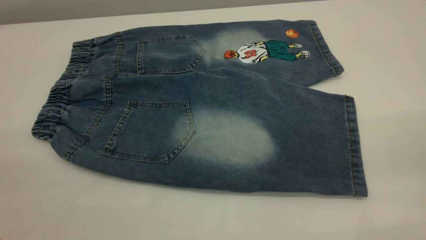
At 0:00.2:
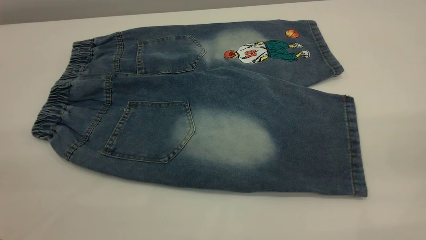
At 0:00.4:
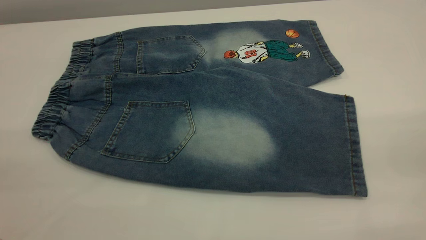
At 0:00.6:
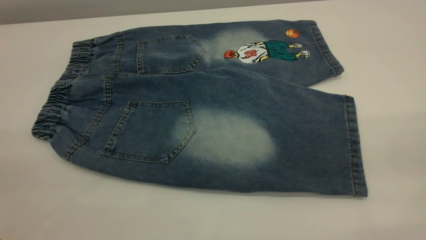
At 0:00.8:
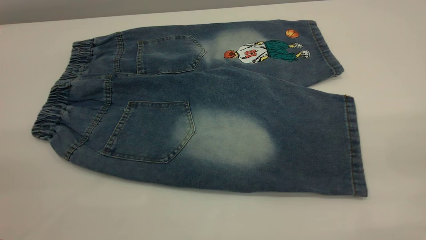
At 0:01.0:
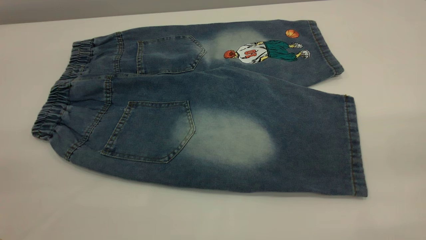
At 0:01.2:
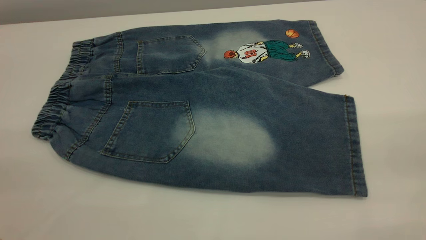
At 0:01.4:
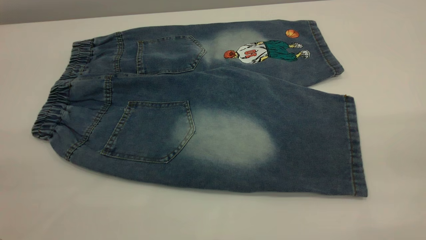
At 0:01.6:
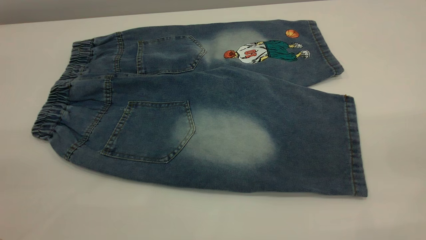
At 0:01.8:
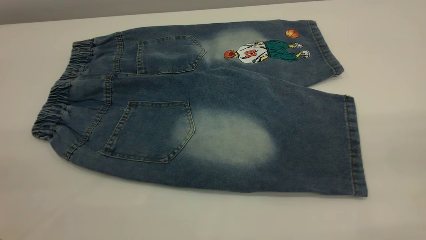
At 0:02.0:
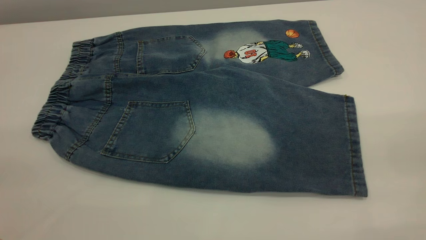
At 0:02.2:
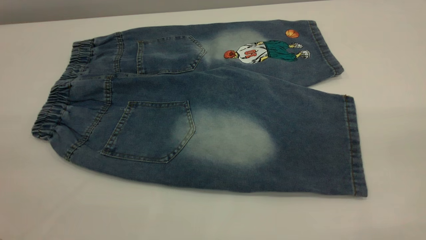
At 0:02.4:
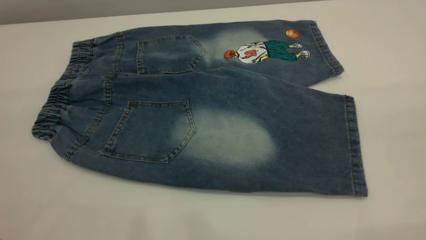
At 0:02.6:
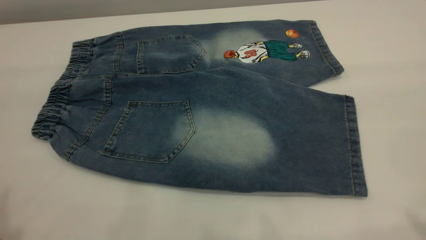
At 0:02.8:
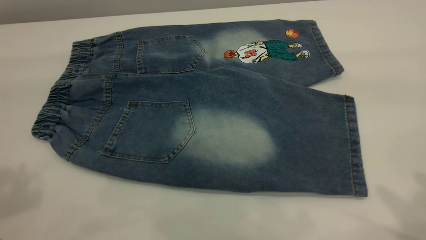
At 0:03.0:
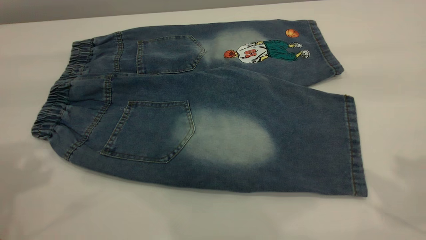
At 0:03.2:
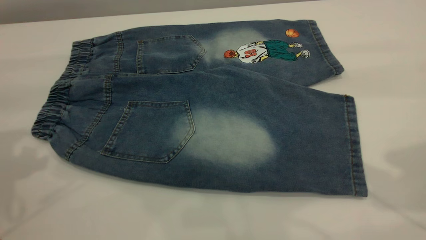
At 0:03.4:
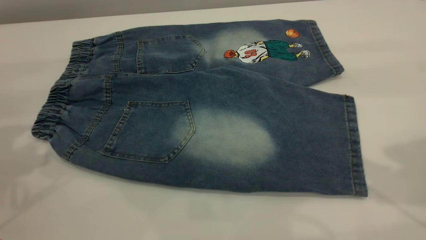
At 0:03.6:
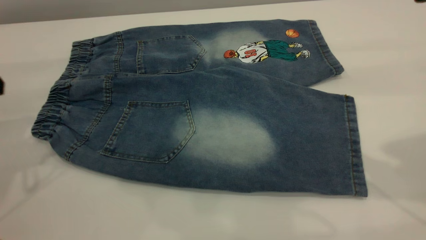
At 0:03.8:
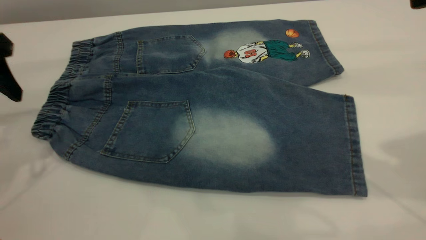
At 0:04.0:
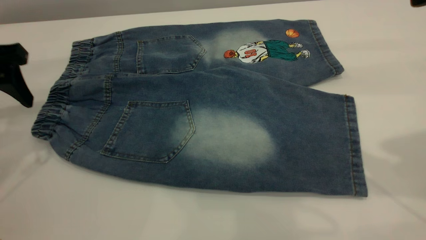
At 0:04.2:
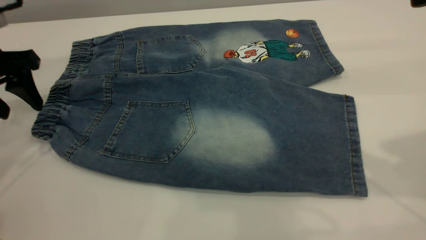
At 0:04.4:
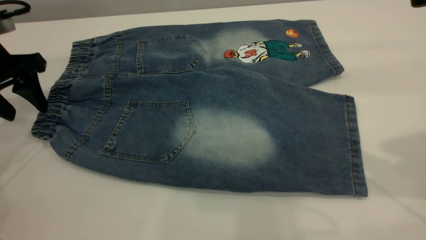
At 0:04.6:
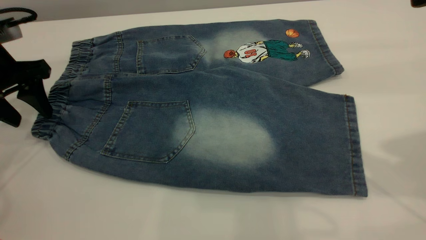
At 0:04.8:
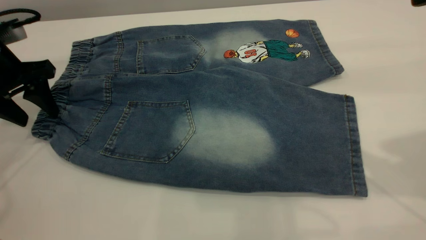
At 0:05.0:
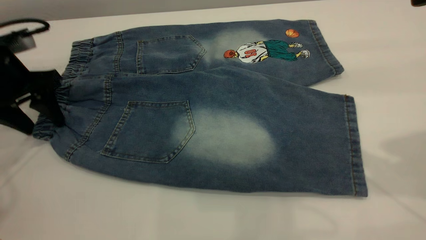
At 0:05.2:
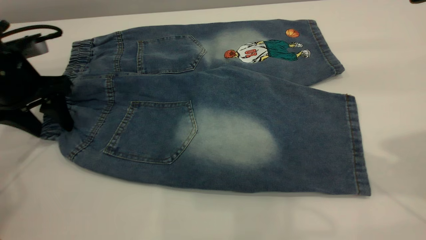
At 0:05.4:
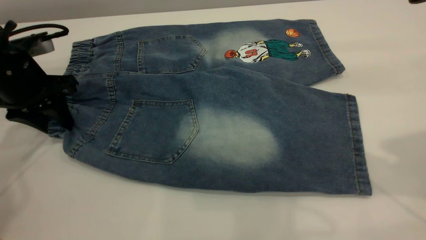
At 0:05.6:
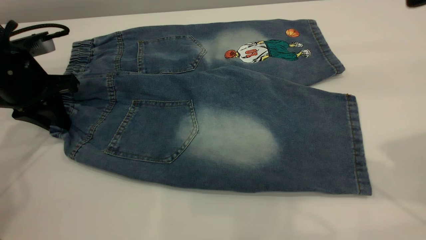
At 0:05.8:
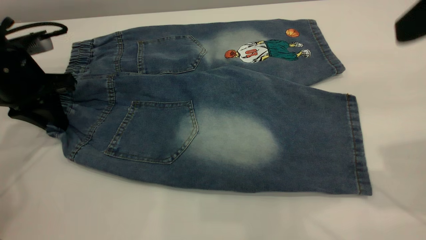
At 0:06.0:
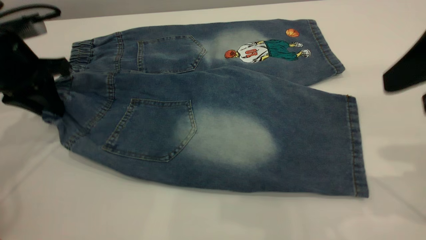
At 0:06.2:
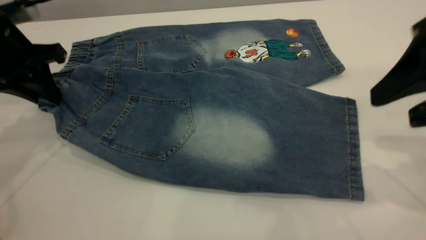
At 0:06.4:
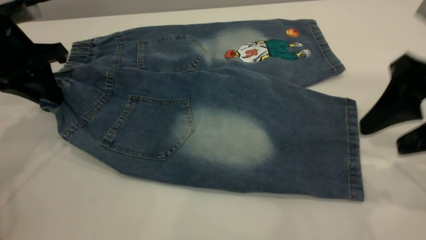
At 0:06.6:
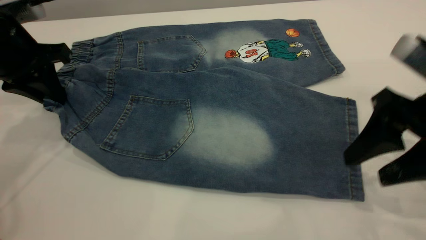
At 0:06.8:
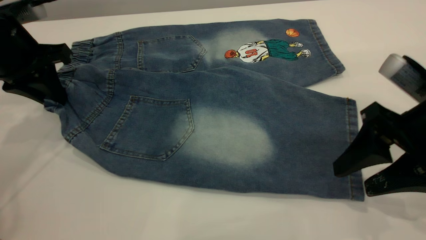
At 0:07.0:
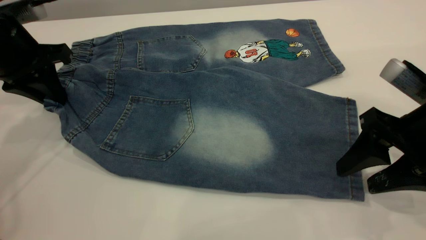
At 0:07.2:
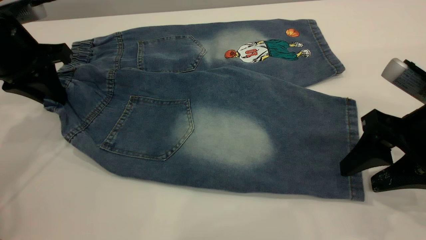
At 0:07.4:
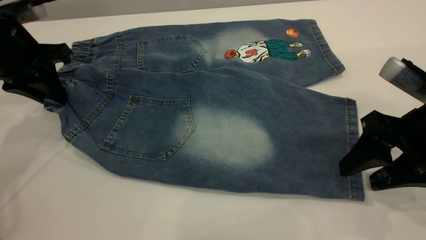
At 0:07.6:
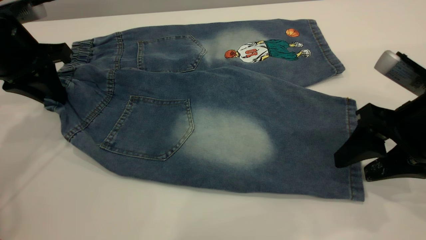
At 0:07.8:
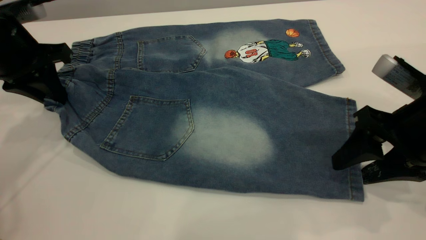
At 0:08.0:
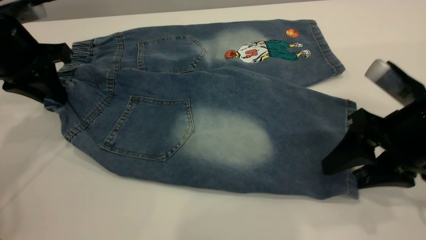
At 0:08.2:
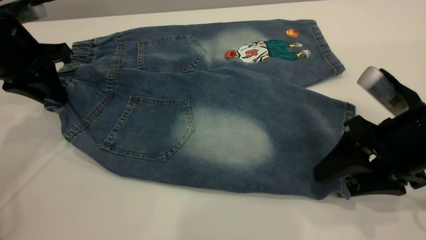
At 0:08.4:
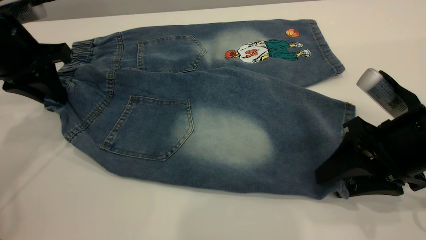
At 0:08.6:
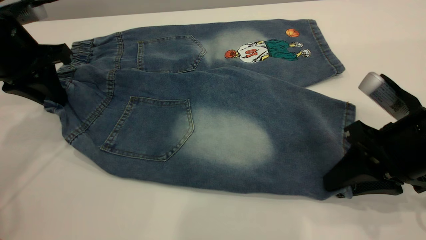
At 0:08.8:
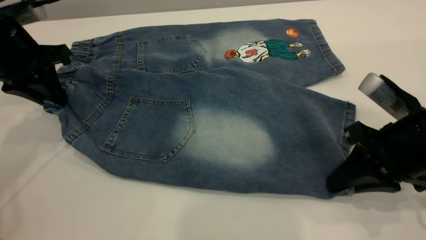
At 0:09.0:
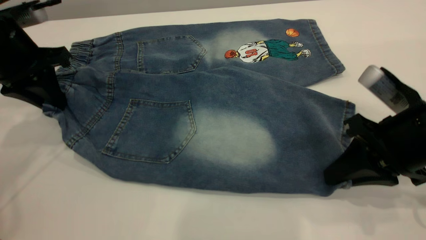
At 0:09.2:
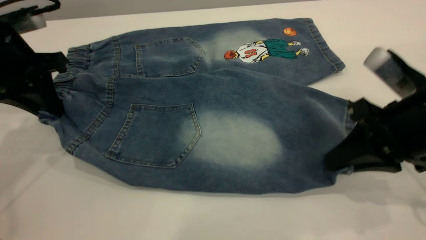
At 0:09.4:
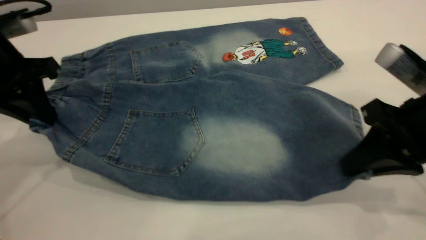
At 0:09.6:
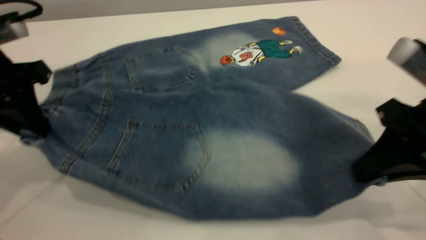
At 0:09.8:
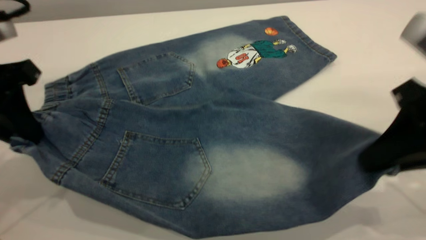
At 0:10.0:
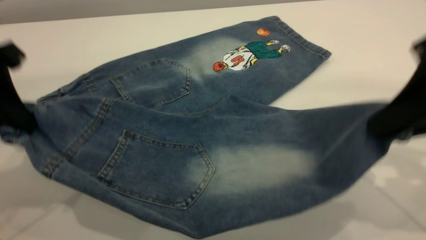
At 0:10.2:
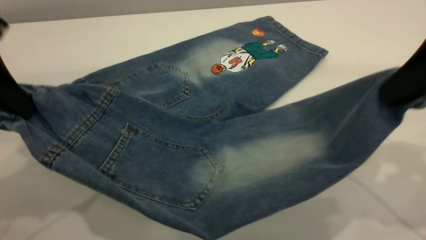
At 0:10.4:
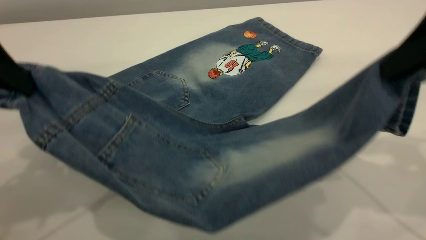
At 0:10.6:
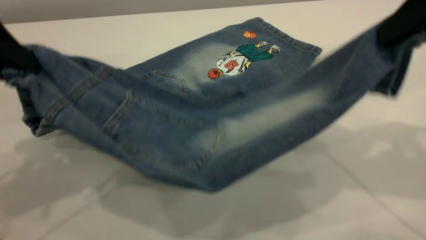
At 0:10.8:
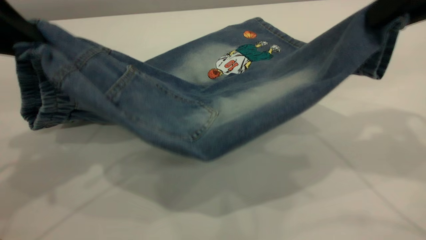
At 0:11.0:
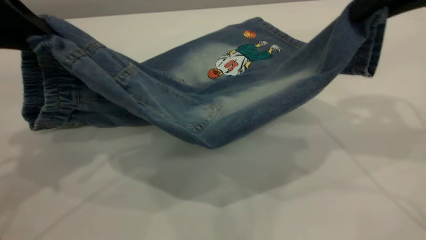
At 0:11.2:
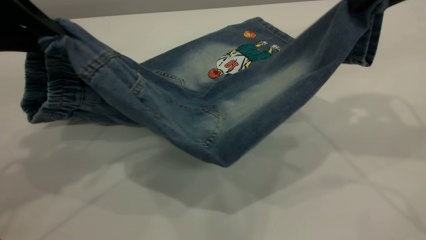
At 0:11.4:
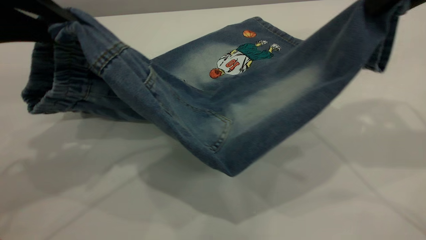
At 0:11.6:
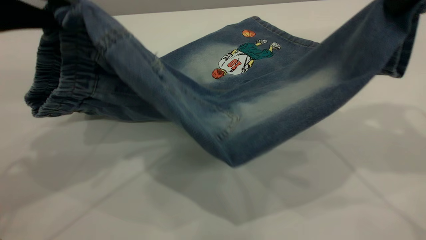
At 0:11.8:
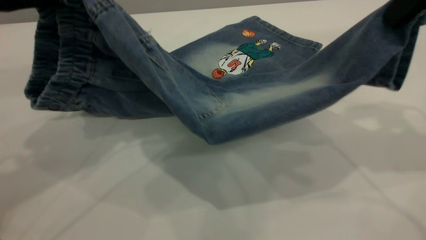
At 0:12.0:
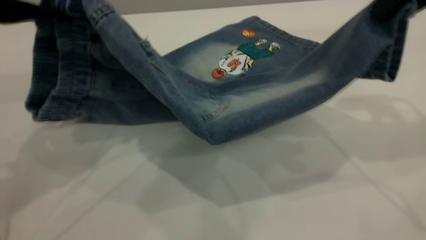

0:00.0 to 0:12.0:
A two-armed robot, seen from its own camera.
0:00.0 to 0:01.6: Both grippers stay put.
0:03.0 to 0:04.4: The left gripper is displaced downward and forward by approximately 20 cm.
0:04.4 to 0:06.0: The right gripper heads downward, covering roughly 5 cm. Meanwhile the left gripper closes.
0:06.0 to 0:07.6: The right gripper shifts approximately 15 cm downward.
0:07.6 to 0:09.0: The right gripper closes its fingers.
0:09.0 to 0:10.4: The left gripper heads backward and upward, covering approximately 15 cm. The right gripper goes about 20 cm upward.
0:10.4 to 0:12.0: The right gripper is displaced forward by roughly 10 cm.

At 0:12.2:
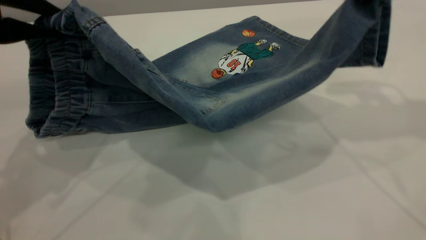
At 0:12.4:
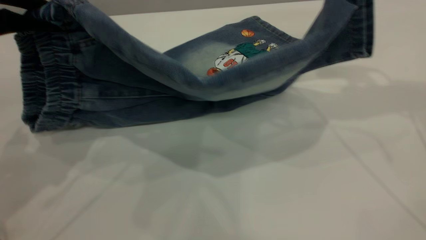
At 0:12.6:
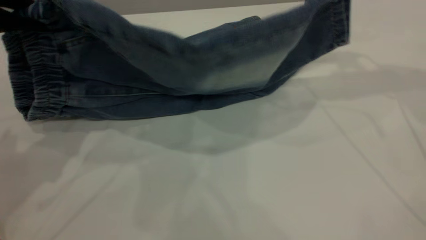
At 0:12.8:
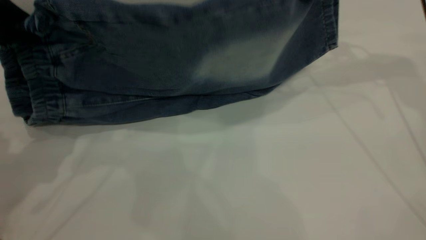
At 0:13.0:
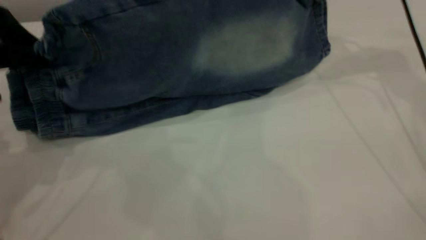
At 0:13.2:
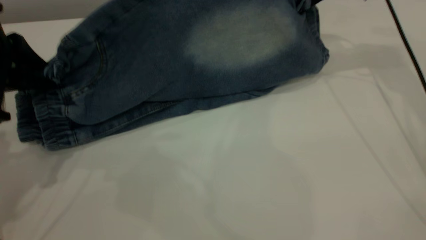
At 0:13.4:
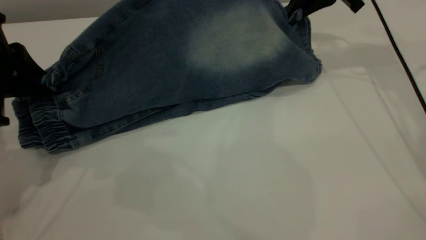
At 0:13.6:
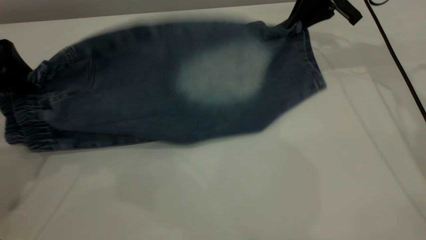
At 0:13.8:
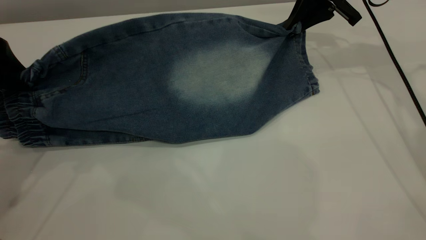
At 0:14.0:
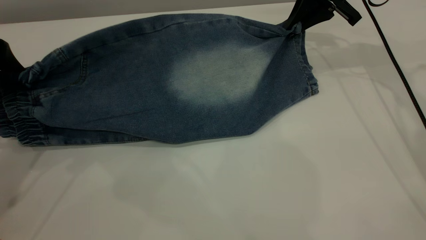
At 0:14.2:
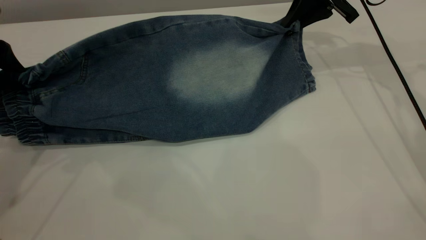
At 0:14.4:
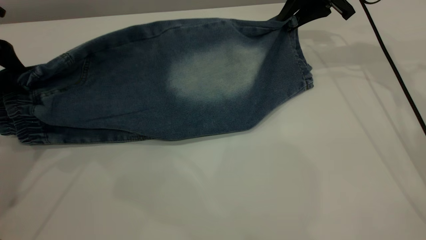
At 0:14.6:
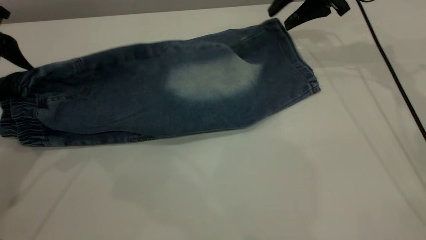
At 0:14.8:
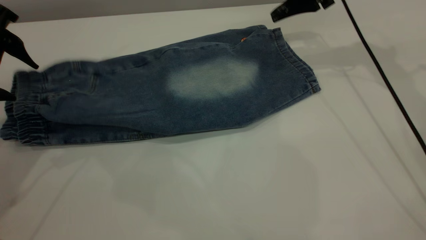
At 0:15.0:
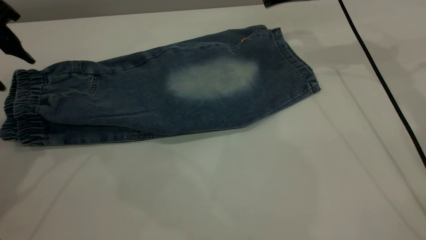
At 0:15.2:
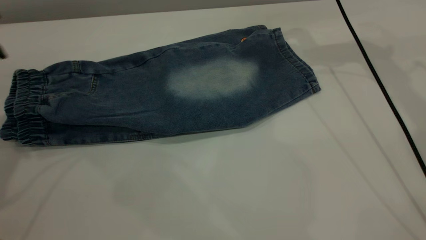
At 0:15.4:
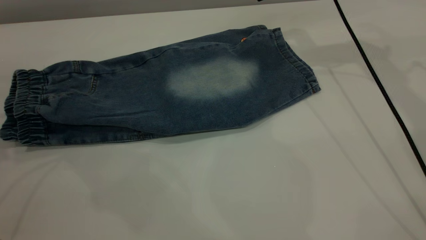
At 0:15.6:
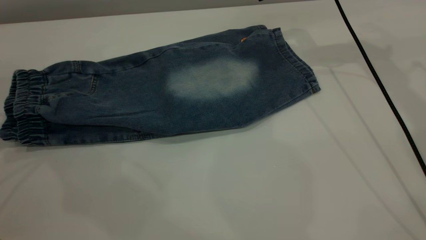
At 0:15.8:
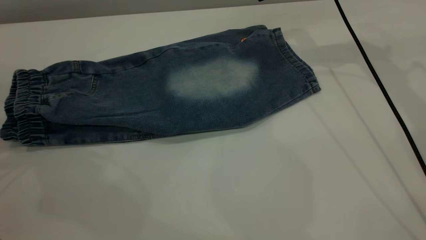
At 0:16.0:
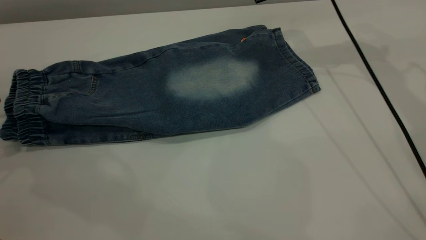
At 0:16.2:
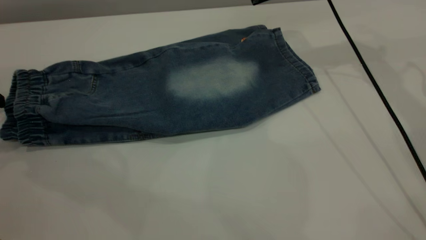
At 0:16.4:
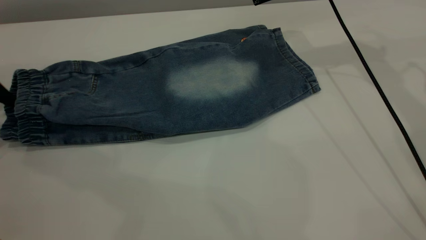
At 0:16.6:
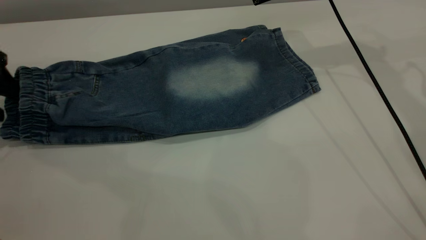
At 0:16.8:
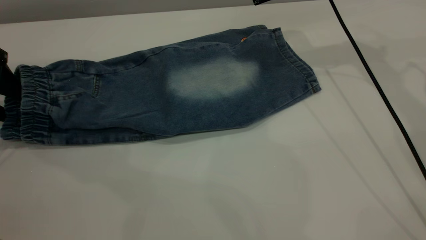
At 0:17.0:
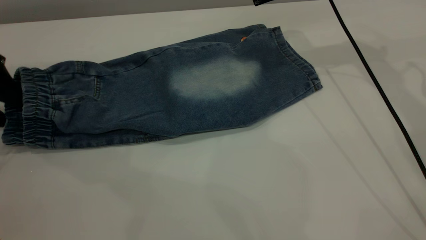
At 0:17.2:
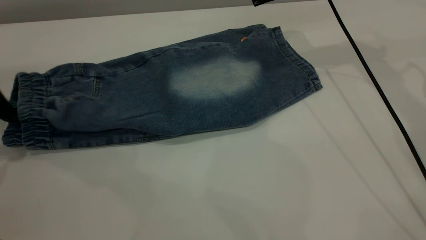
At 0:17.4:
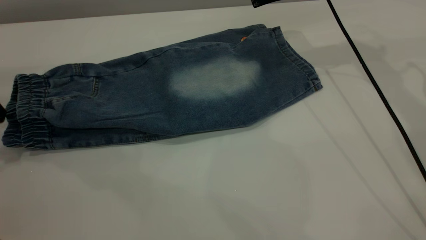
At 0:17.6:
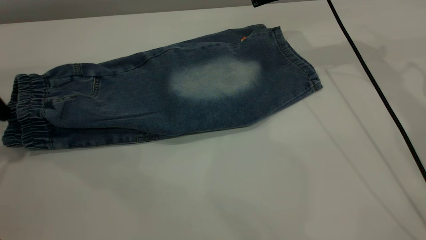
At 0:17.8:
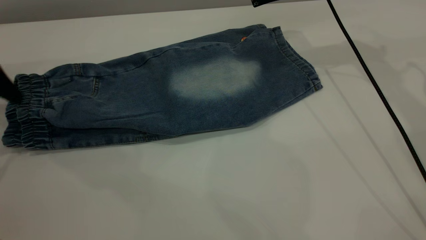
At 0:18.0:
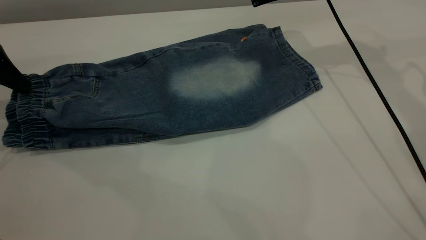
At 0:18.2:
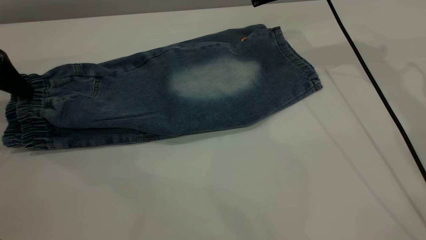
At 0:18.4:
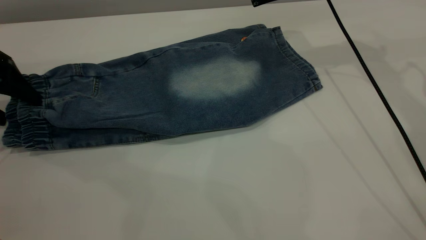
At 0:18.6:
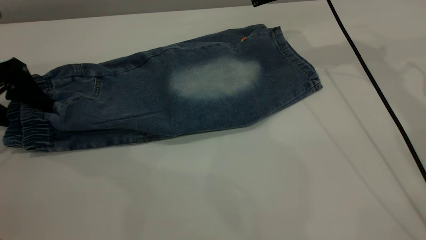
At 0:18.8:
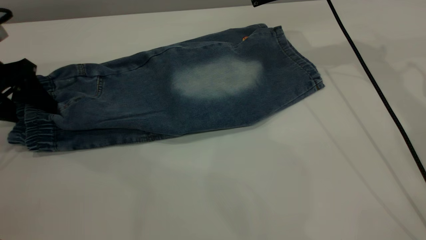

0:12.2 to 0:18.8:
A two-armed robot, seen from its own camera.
Step, 0:12.2 to 0:15.2: Fold the bottom of the pants upward.
0:12.2 to 0:13.8: The right gripper travels forward and downward by about 20 cm. Meanwhile the left gripper goes roughly 5 cm downward.
0:13.8 to 0:15.4: The left gripper shifts some 5 cm to the left, and opens its fingers. The right gripper moves some 5 cm, and opens.
0:17.2 to 0:18.8: The left gripper ends up roughly 5 cm from where it was.
